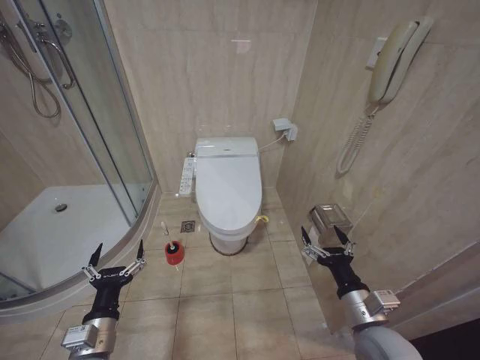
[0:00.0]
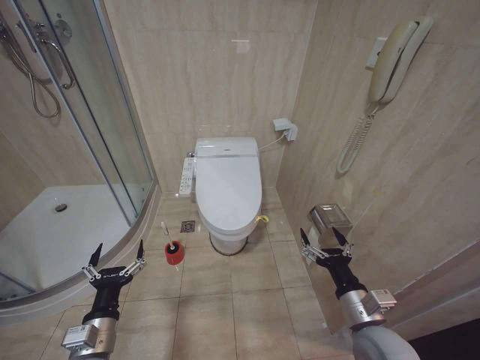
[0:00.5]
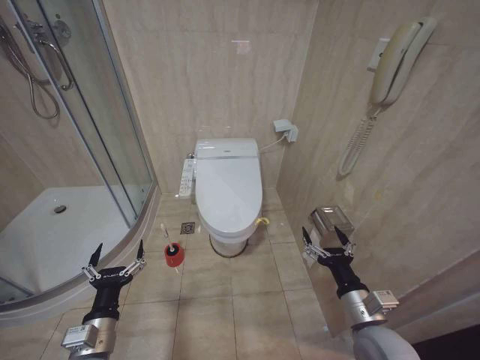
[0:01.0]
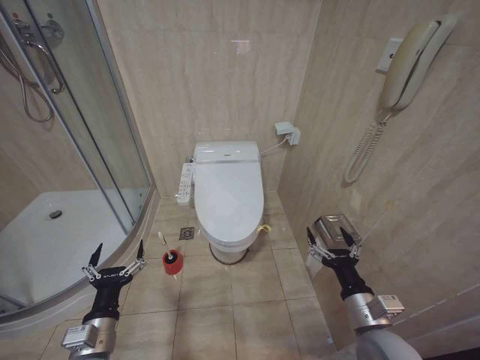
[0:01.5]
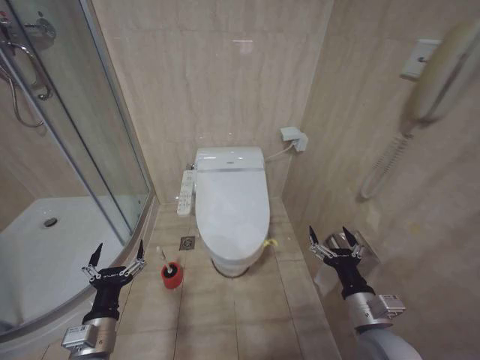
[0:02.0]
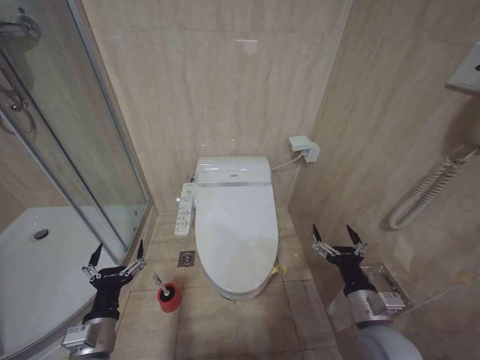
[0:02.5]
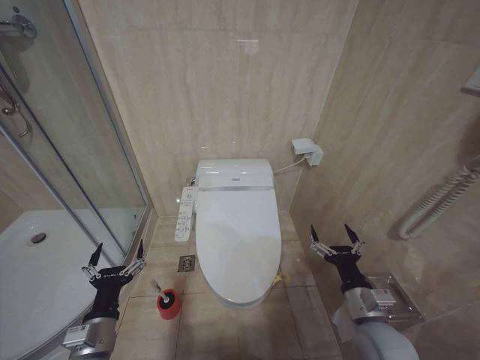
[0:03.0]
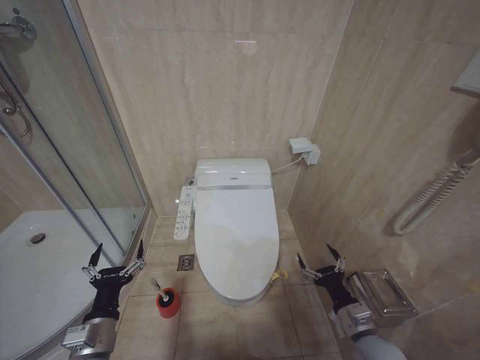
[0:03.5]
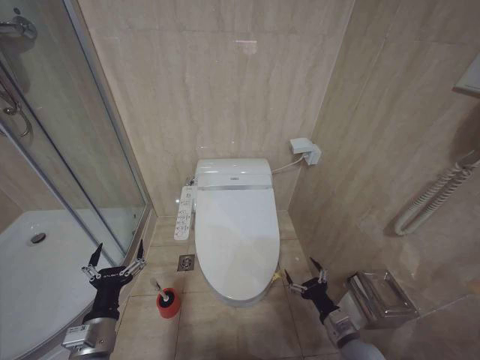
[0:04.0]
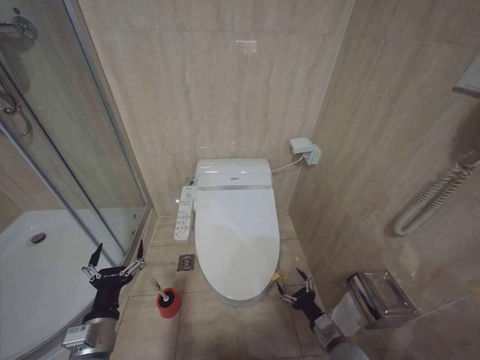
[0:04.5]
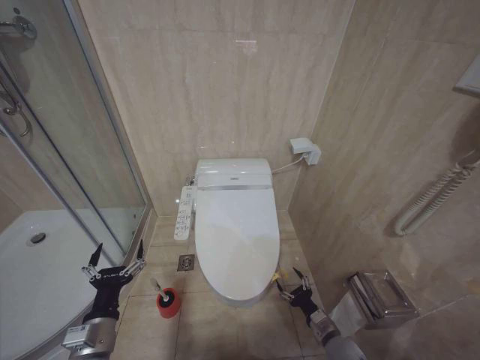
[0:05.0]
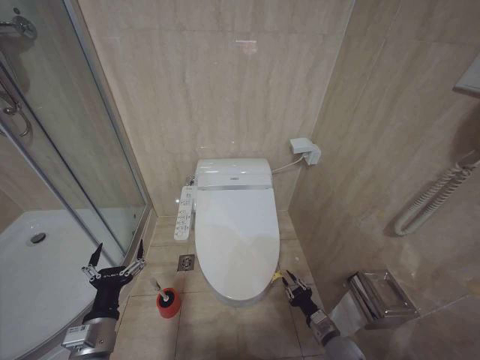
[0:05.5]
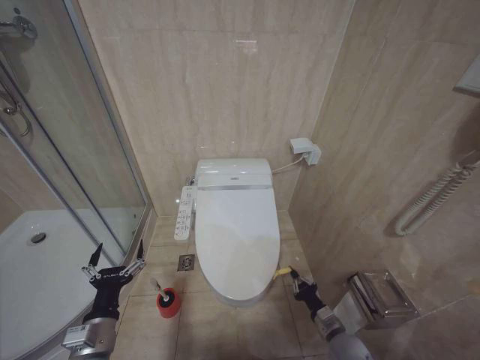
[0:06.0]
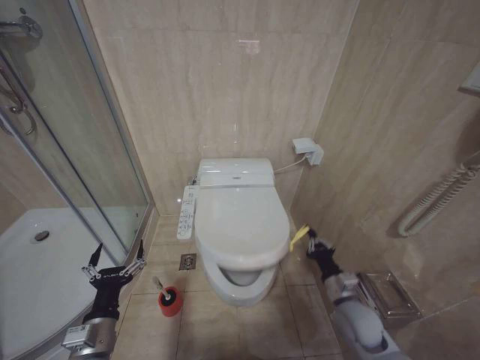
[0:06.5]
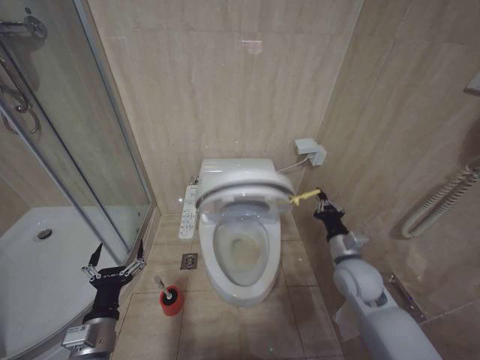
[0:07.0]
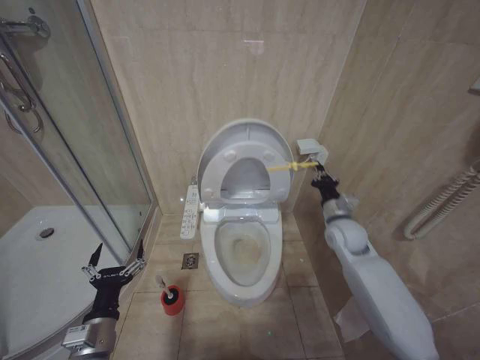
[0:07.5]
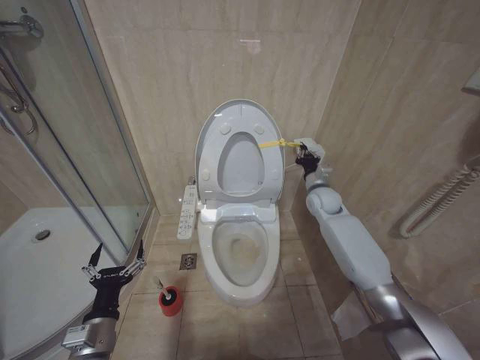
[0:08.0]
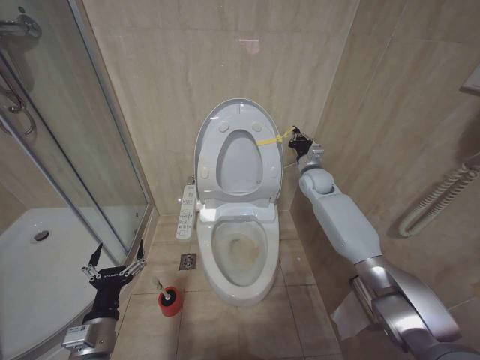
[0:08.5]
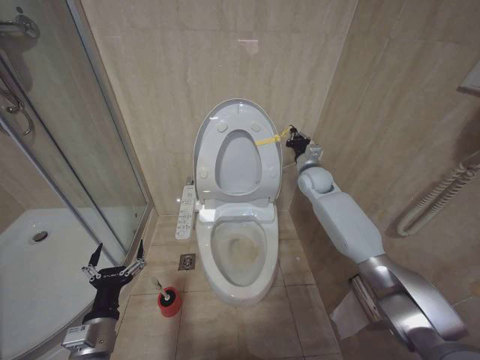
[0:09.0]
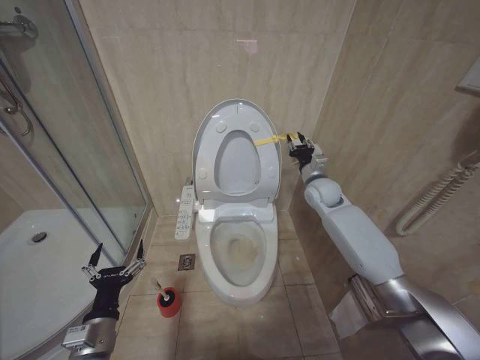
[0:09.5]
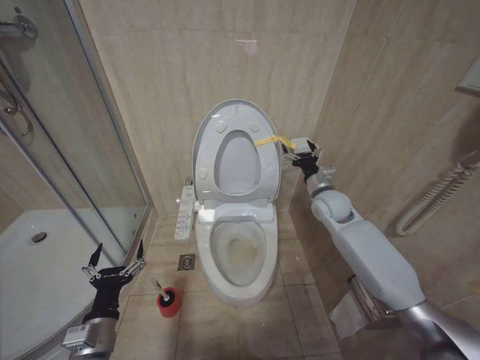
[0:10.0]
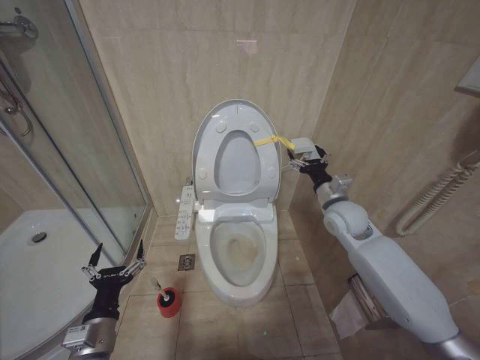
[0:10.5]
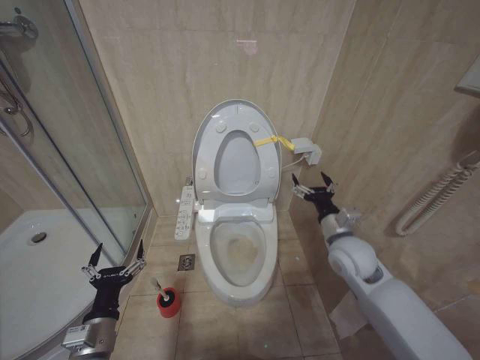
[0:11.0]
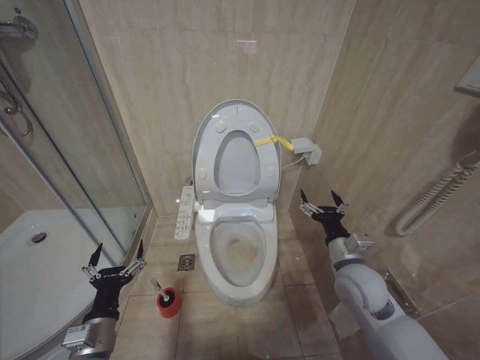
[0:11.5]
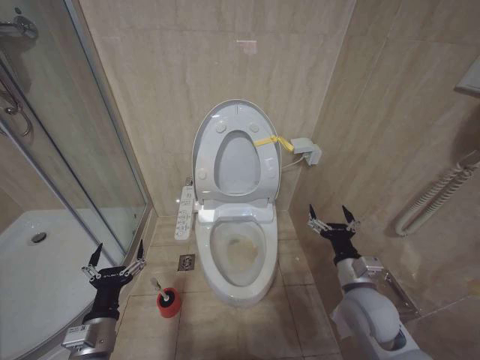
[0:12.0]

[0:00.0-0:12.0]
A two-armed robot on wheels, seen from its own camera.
Task of the whole recording: Open the toilet lid, clean the toilet bowl with a toilet brush, close the toilet lid, and flush.
0:02.0 to 0:04.0: The right gripper moves downward, some 15 cm.
0:04.0 to 0:06.0: The right gripper goes approximately 10 cm downward, and closes.
0:06.0 to 0:08.0: The right gripper heads forward and upward, covering some 40 cm.
0:08.0 to 0:10.0: The right gripper opens.
0:10.0 to 0:12.0: The right gripper goes about 25 cm backward and downward.

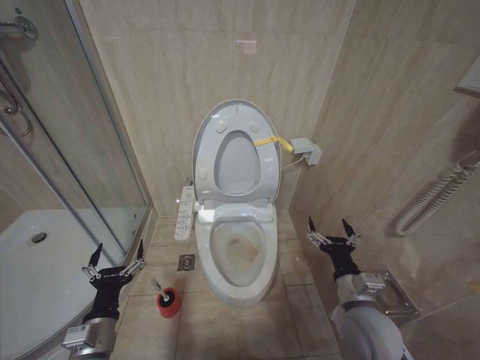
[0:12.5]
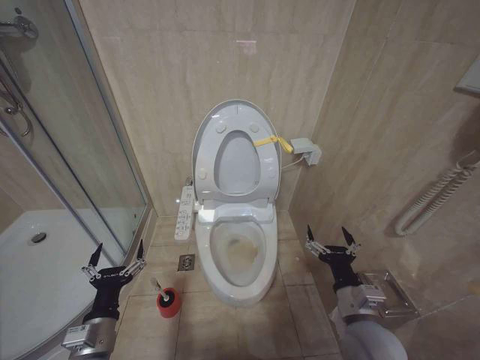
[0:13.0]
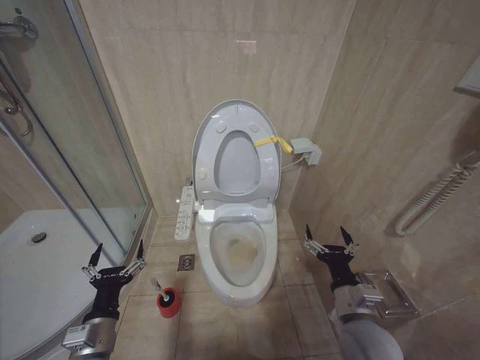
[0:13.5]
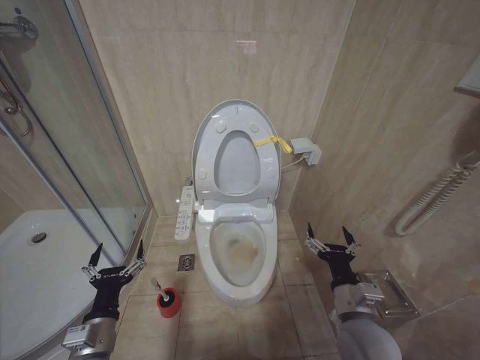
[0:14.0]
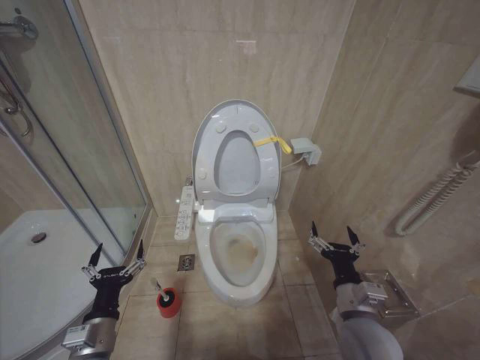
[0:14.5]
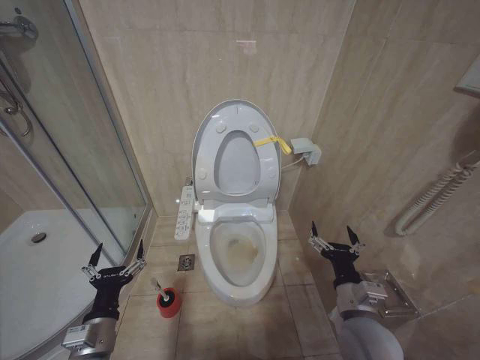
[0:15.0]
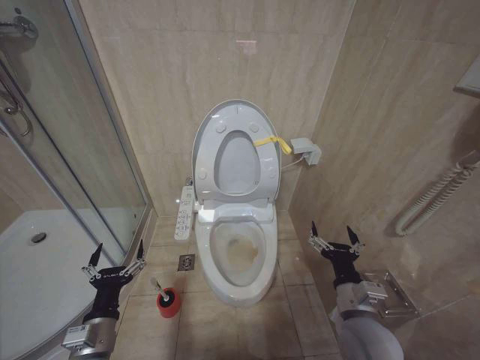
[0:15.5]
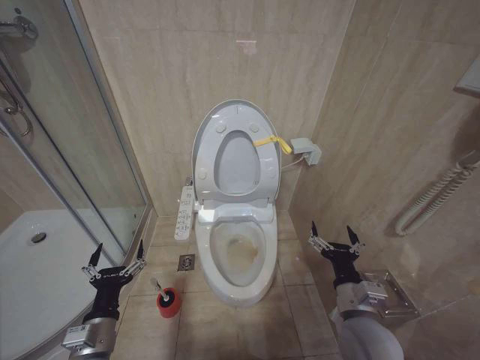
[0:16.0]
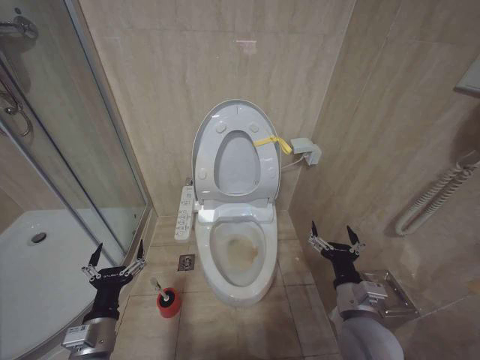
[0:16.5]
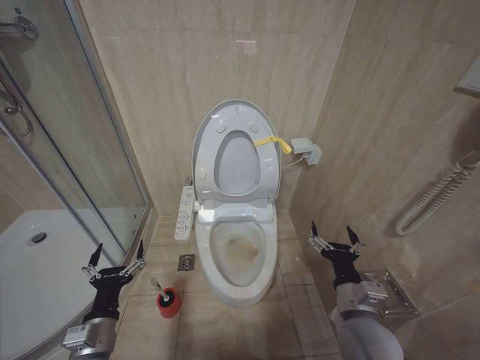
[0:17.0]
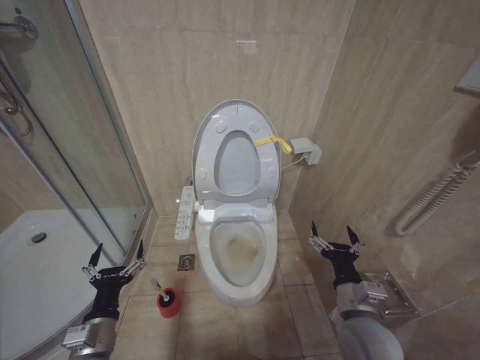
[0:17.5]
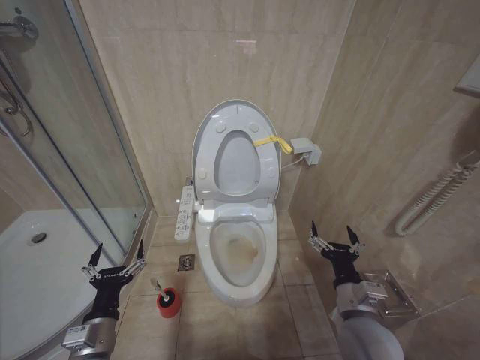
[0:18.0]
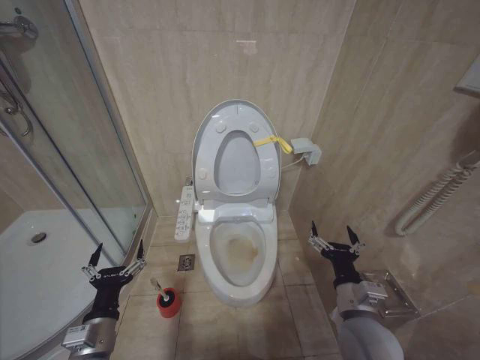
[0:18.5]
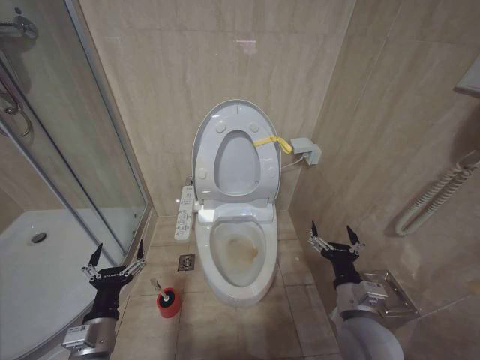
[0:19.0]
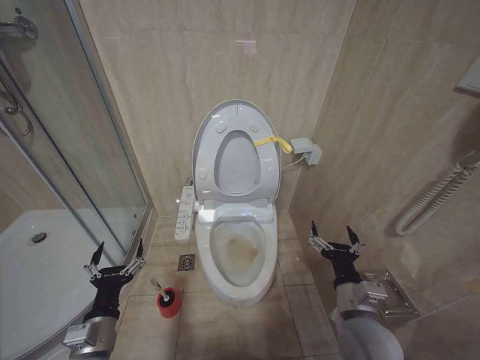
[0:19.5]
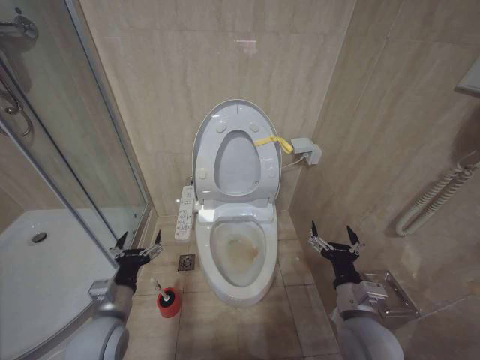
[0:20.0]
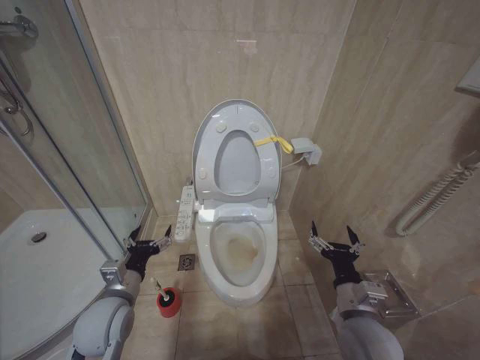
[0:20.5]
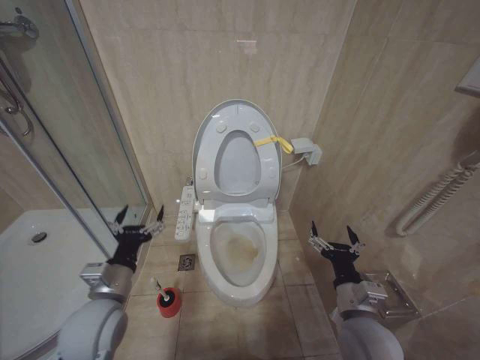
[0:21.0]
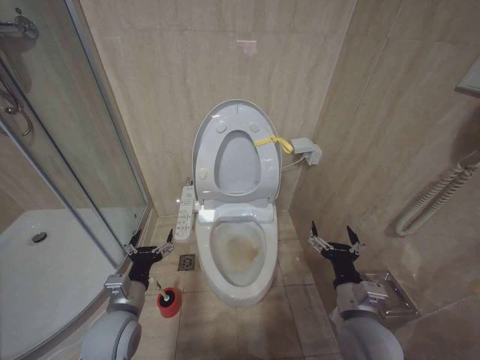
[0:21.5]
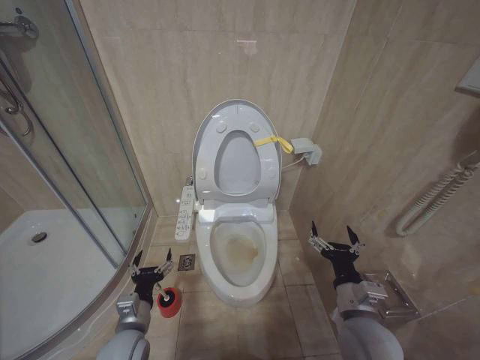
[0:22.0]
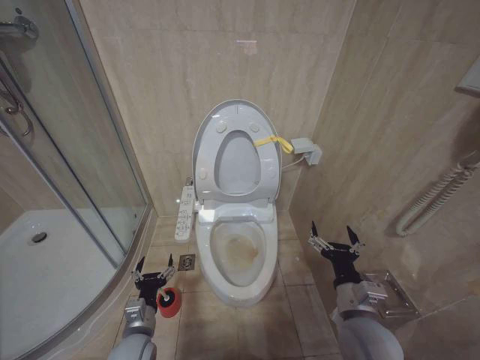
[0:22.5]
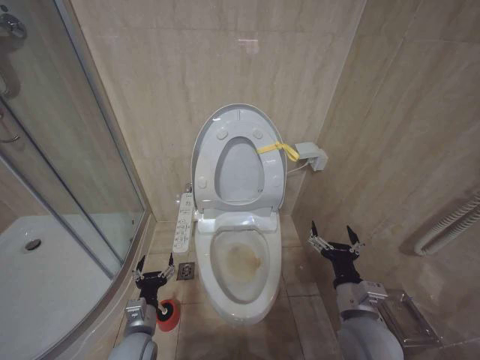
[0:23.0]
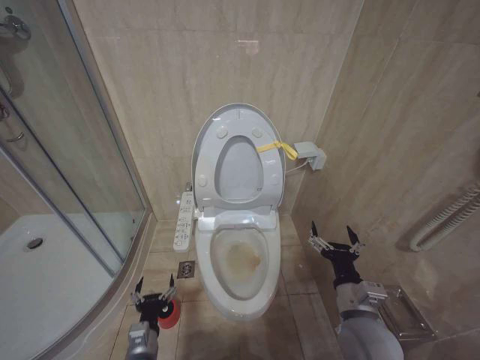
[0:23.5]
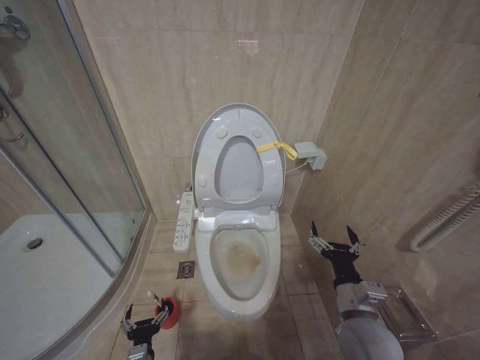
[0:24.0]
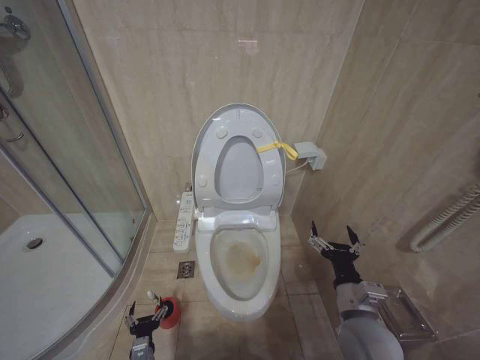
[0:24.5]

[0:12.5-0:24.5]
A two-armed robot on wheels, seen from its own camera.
Task of the whole recording: Open the toilet lid, clean the toilet bowl with a toilet brush, close the toilet lid, and flush.
0:12.5 to 0:14.5: There are only small adjustments of the grippers.
0:14.5 to 0:18.5: Both grippers stay about where they are.
0:18.5 to 0:20.5: The left gripper goes approximately 10 cm forward.
0:20.5 to 0:22.5: The left gripper moves downward, about 10 cm.
0:22.5 to 0:24.5: The left gripper shifts some 15 cm downward.

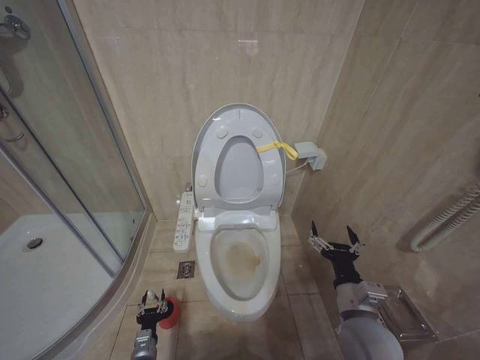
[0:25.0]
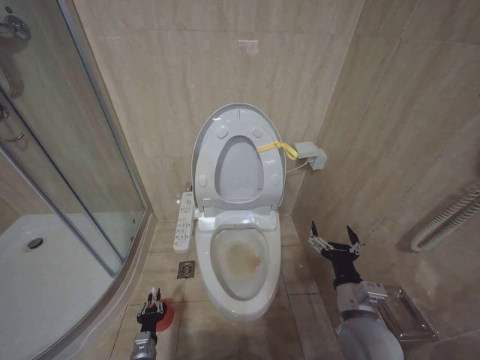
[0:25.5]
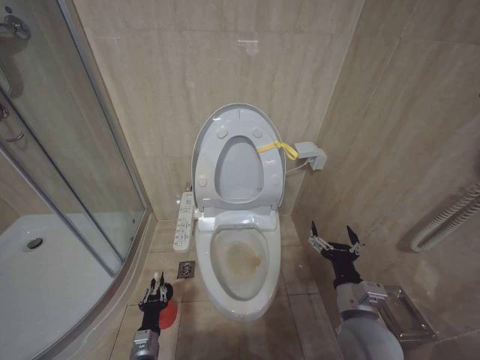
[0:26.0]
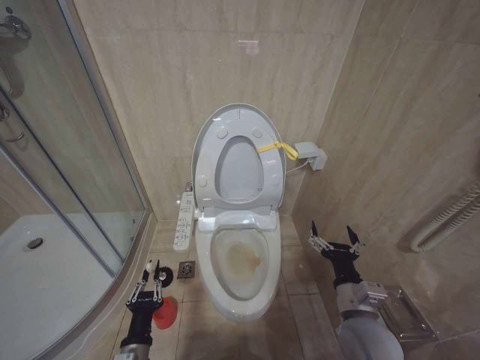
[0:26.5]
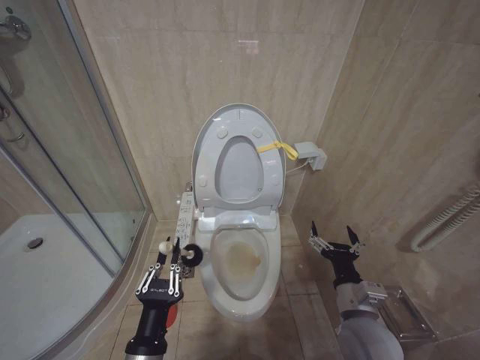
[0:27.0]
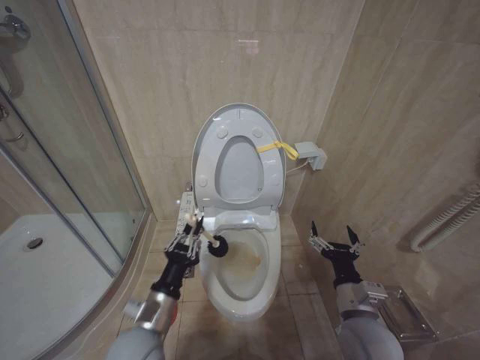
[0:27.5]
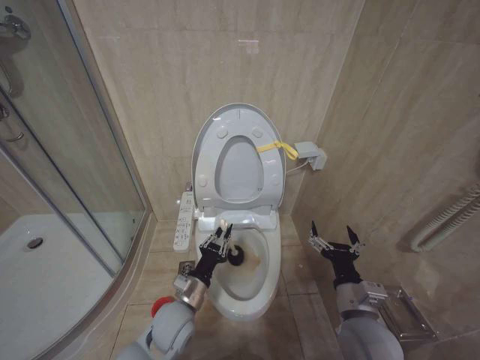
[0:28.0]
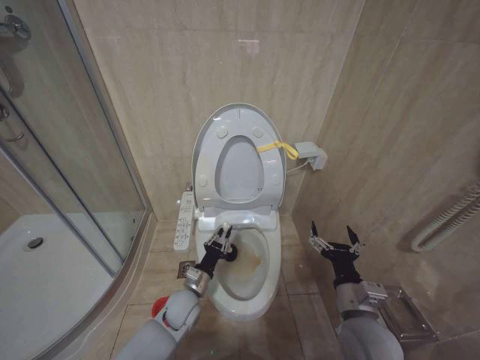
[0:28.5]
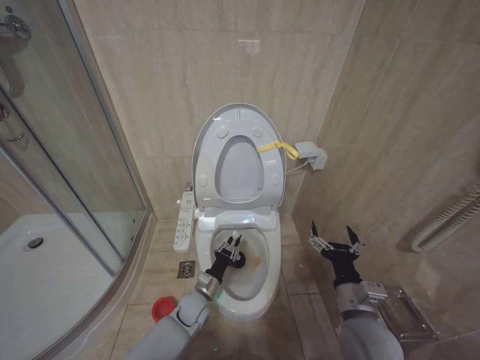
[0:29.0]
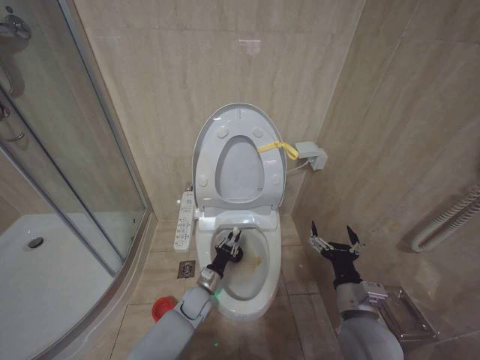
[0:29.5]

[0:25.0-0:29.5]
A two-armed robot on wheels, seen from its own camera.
Task of the whole recording: Open the toilet lid, clean the toilet bowl with a toilet brush, close the toilet lid, and flush.
0:25.0 to 0:27.0: The left gripper moves upward, roughly 25 cm, and closes its fingers.
0:27.0 to 0:29.5: The left gripper goes about 35 cm forward and downward.
